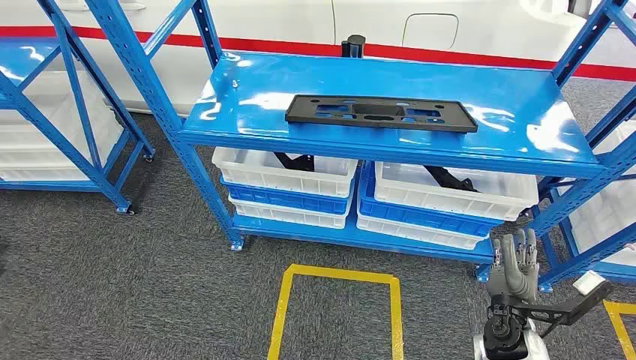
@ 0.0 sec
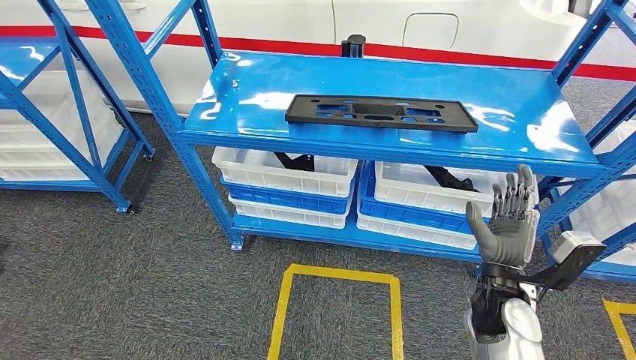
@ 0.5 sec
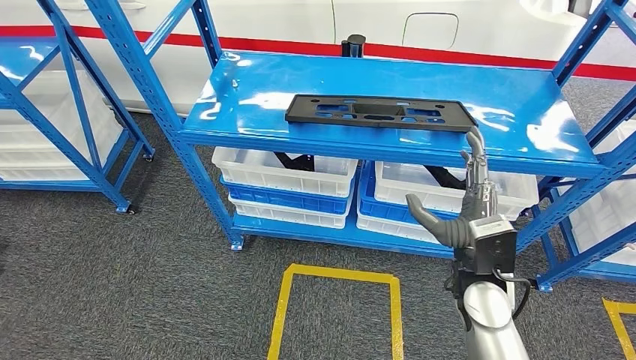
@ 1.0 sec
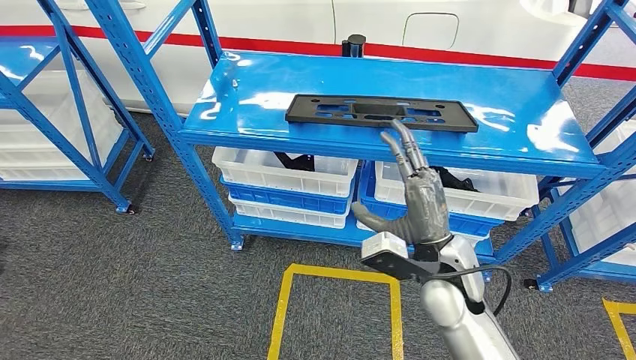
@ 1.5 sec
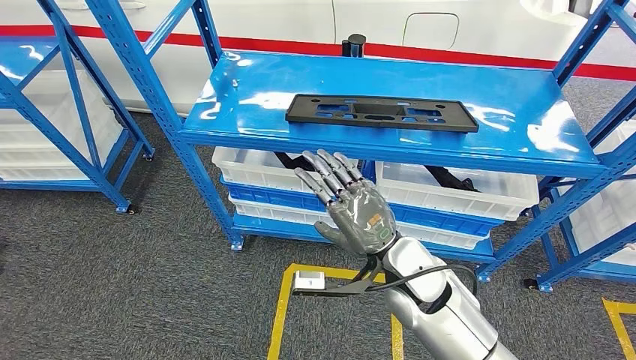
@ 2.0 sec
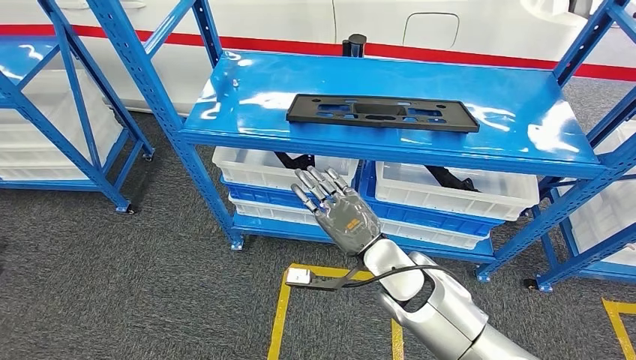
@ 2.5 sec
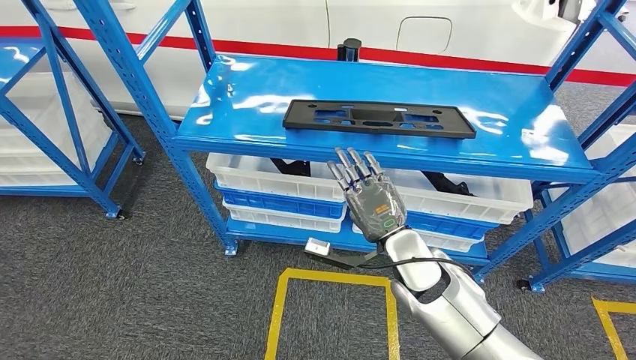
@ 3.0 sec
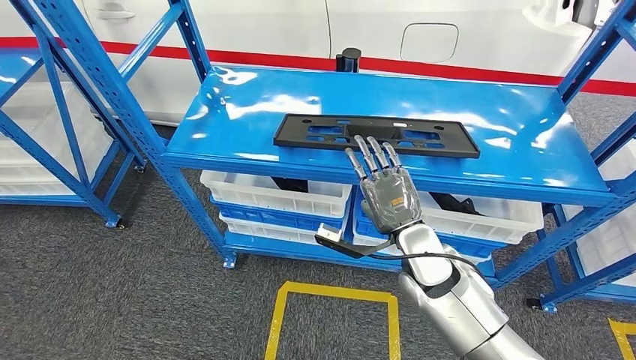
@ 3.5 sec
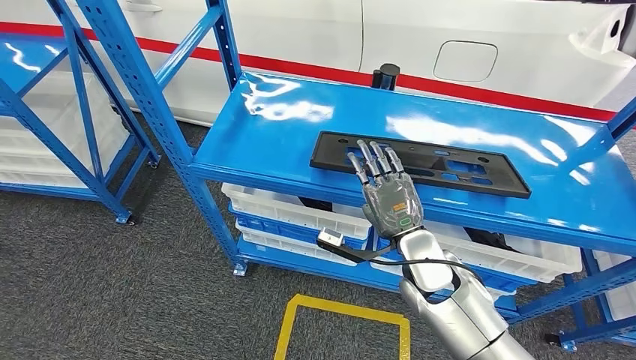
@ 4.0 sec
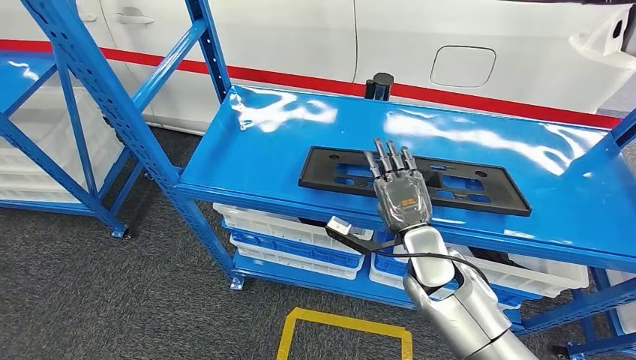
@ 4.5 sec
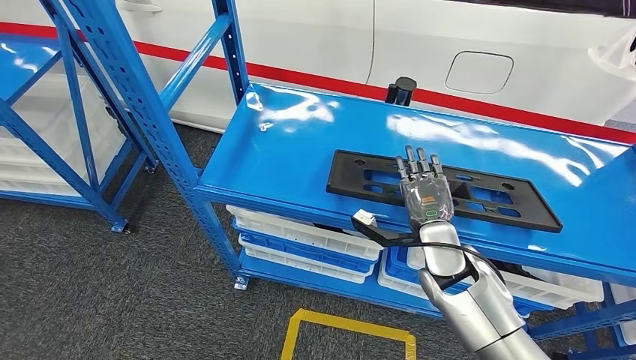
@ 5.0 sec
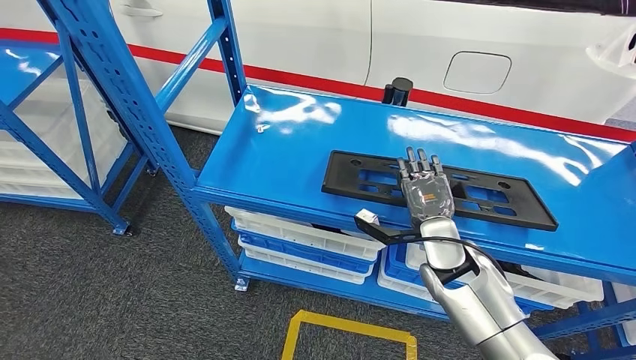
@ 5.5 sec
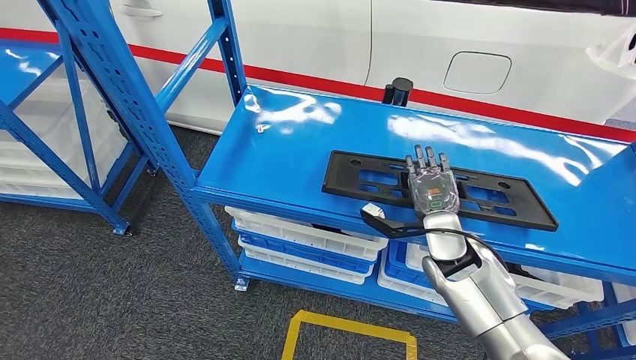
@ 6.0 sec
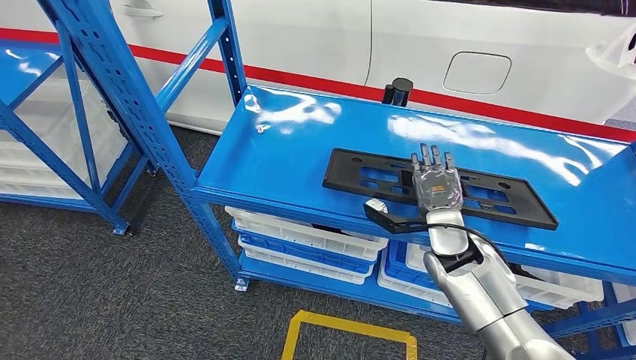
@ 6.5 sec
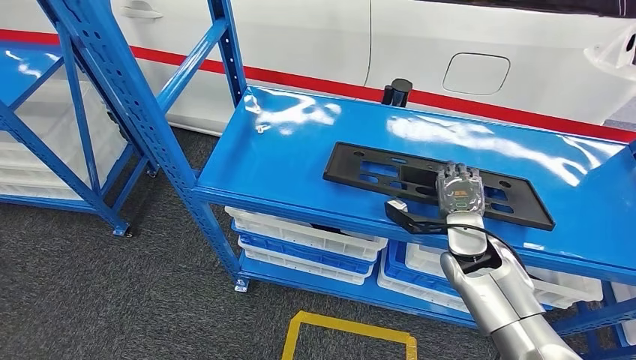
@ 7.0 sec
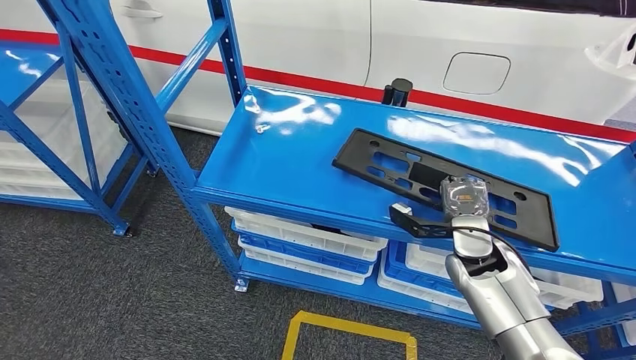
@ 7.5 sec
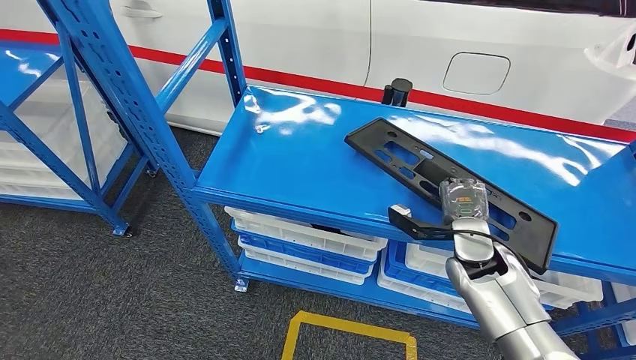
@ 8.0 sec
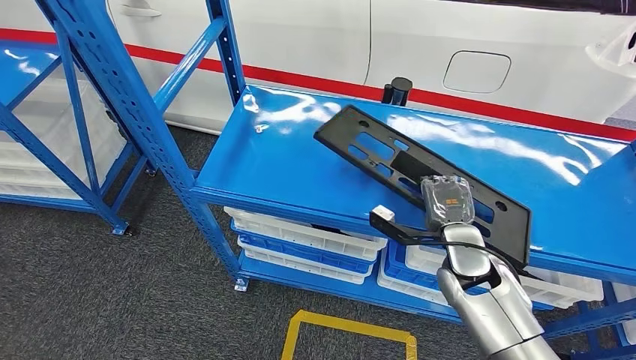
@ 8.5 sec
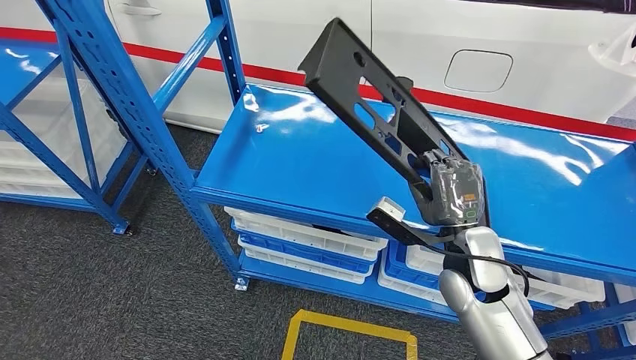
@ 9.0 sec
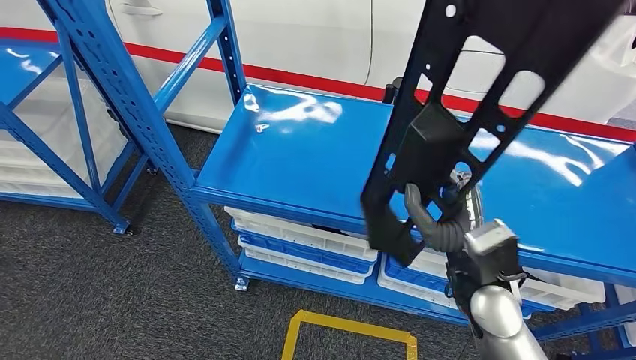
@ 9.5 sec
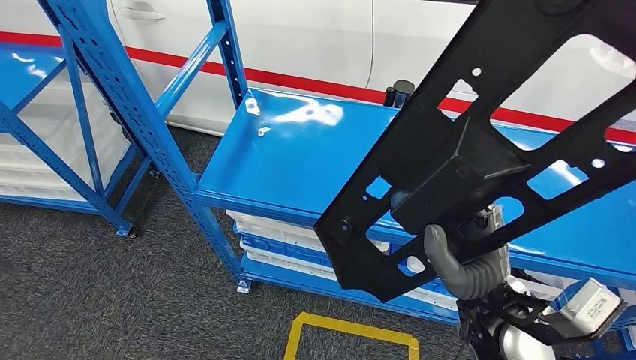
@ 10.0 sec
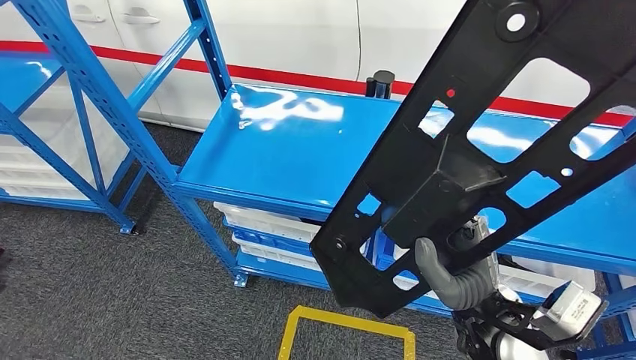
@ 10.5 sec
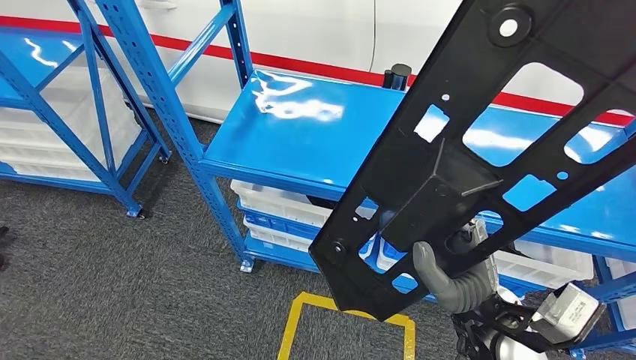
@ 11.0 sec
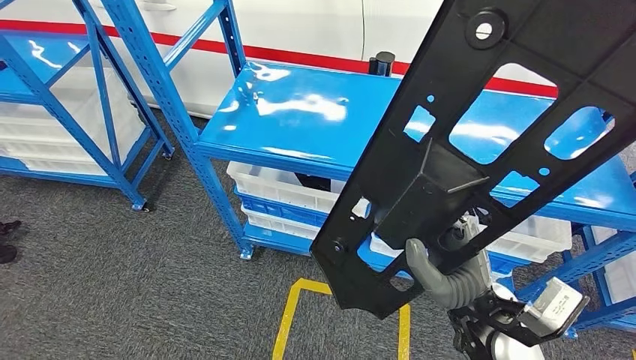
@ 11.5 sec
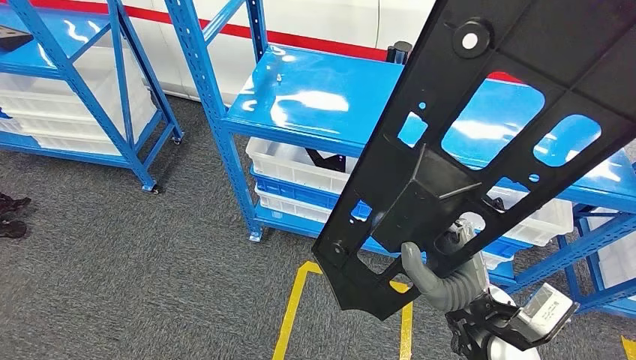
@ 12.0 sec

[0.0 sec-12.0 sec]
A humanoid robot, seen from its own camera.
Step, 0.0 sec to 11.0 sec: Pick up the large material from the shelf.
6.0 sec to 8.0 sec: The hands stay close to where they were, moving slightly.

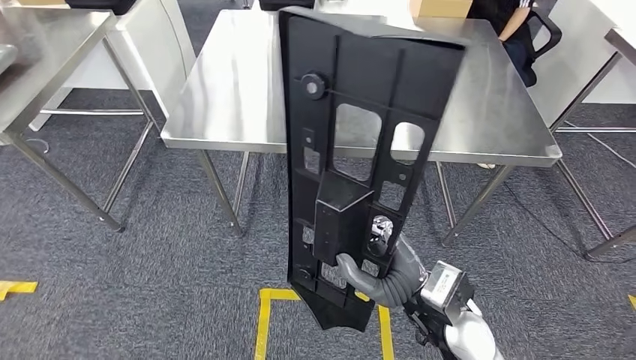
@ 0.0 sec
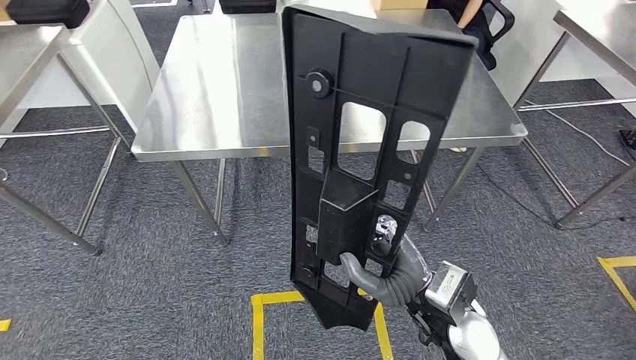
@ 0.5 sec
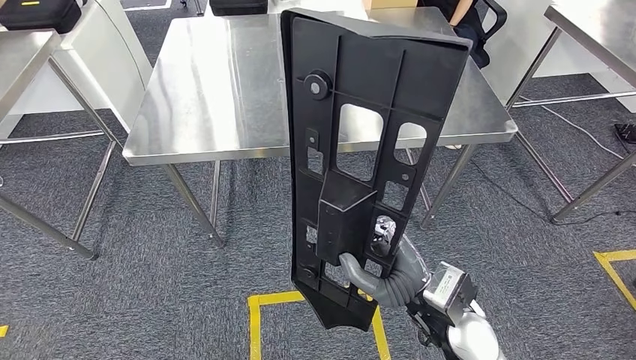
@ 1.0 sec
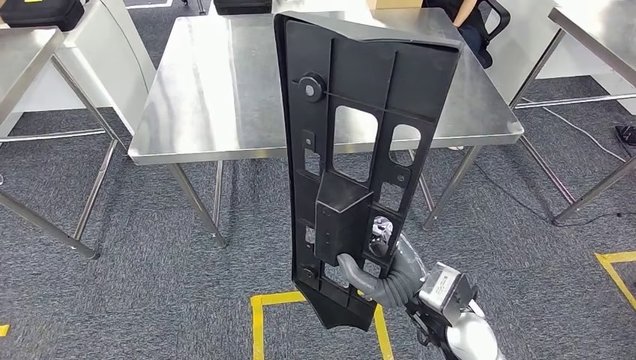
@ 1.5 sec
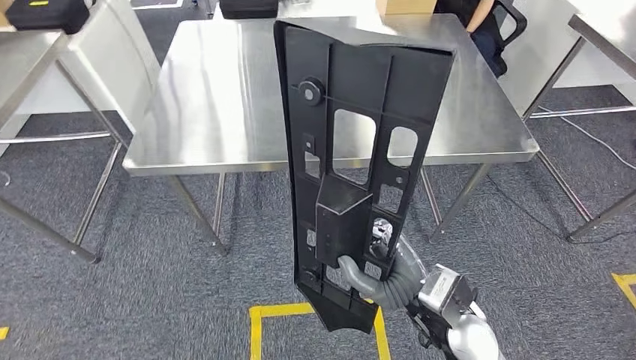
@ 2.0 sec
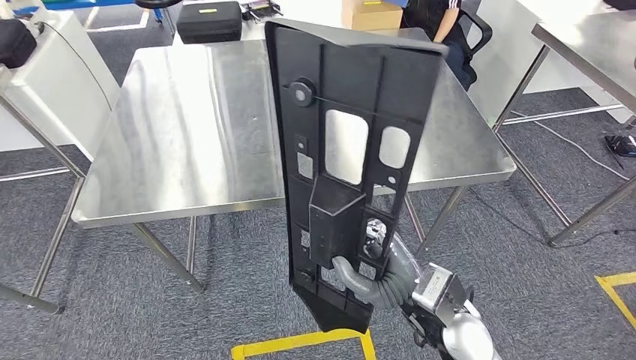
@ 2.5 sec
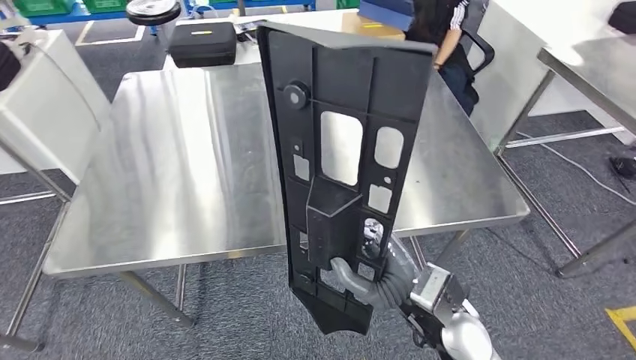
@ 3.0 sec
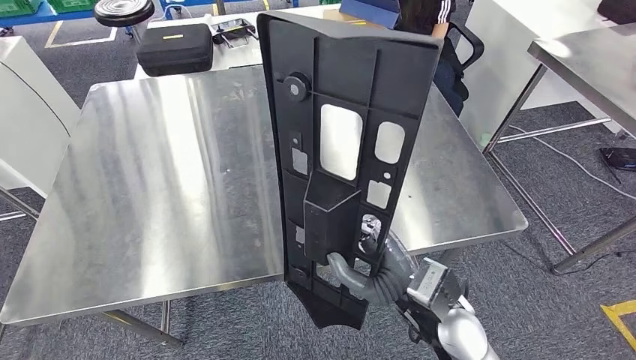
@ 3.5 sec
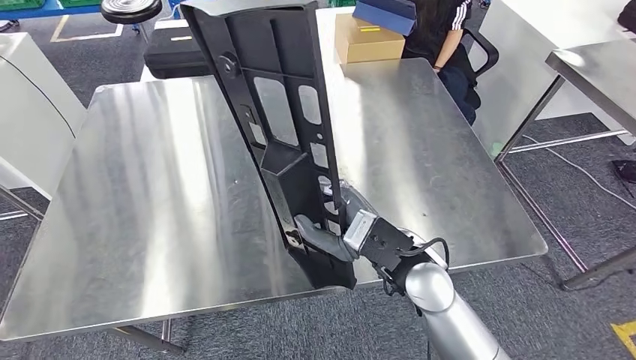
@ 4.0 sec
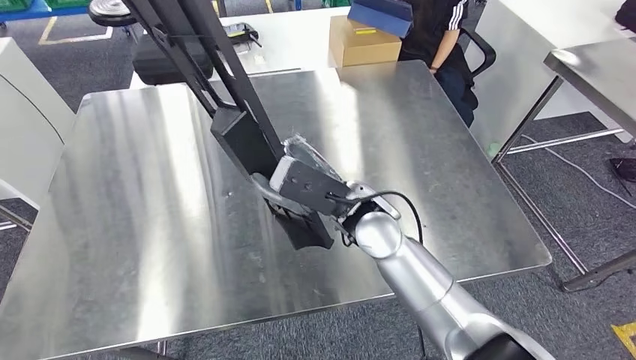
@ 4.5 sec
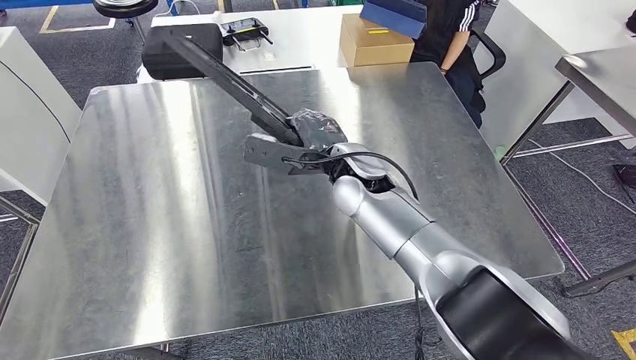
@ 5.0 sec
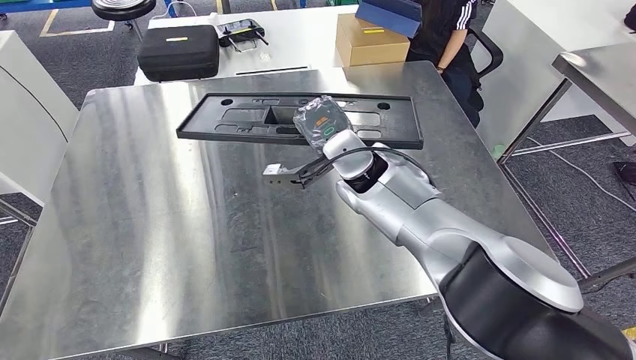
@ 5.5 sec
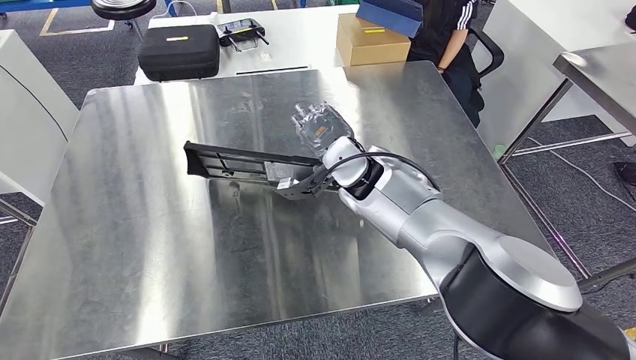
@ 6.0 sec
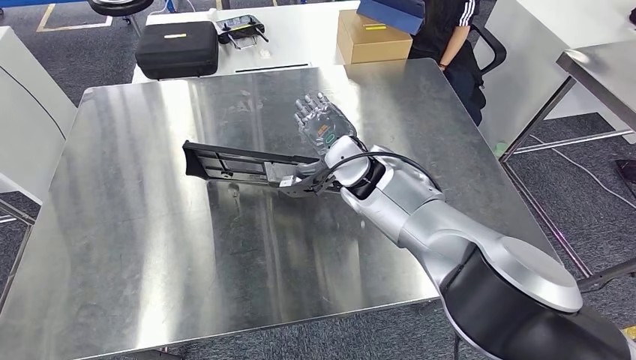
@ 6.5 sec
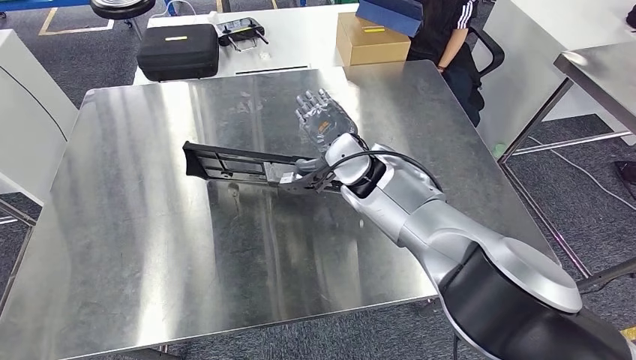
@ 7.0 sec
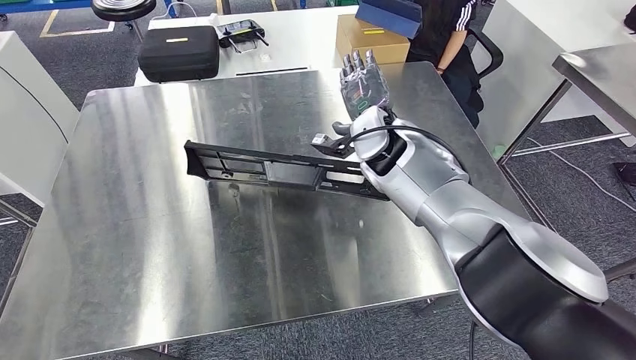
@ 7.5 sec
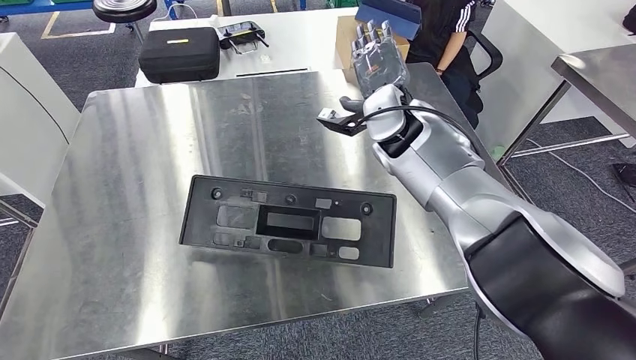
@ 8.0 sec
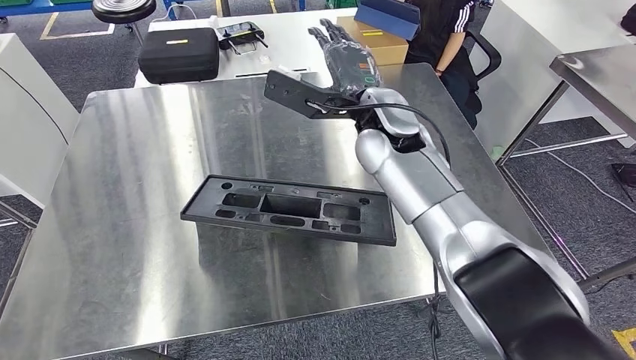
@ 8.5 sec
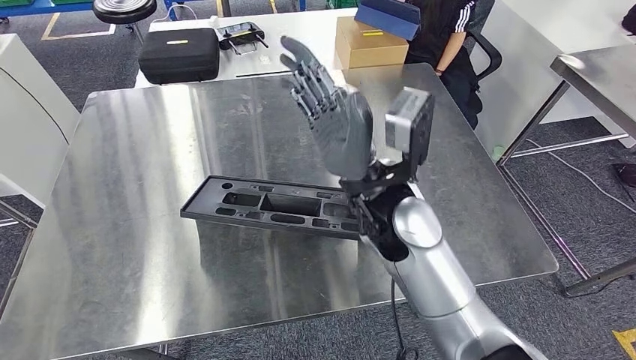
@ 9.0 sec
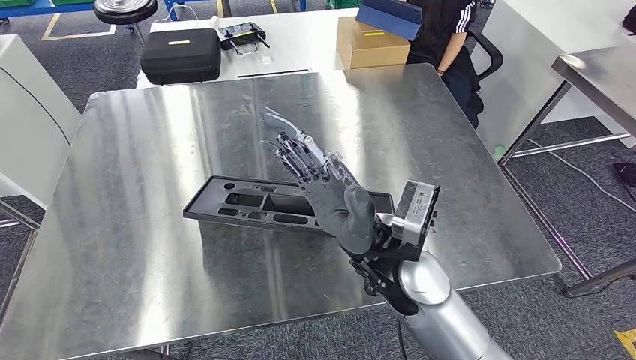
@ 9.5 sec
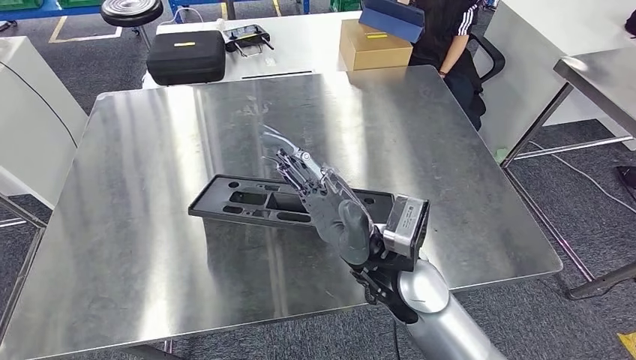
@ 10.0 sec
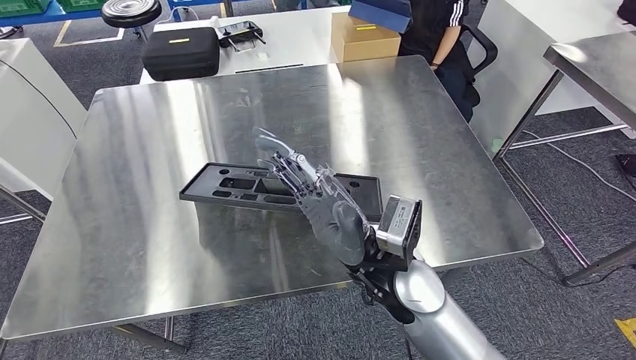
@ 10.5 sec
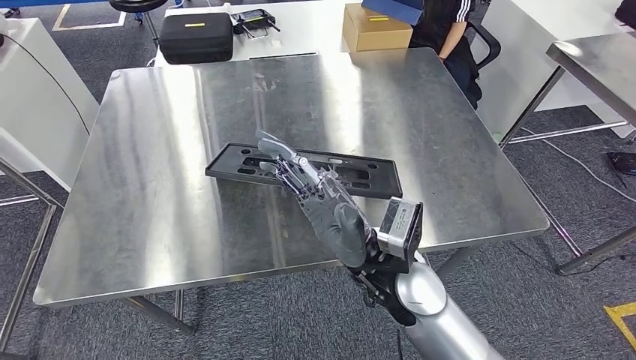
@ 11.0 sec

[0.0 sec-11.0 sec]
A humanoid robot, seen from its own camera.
Step, 0.0 sec to 2.5 sec: Move the large material to the workbench.
